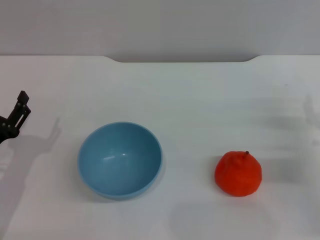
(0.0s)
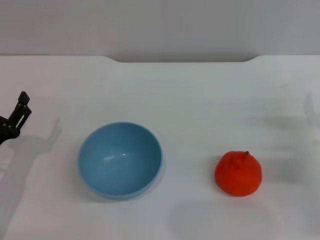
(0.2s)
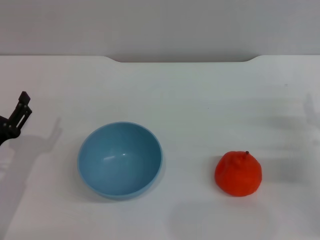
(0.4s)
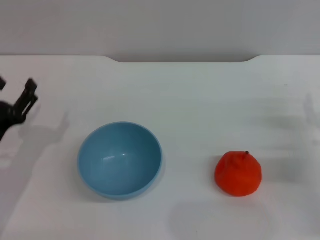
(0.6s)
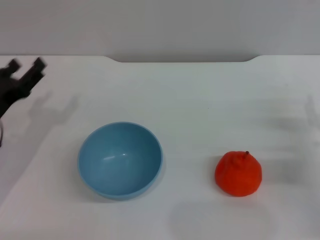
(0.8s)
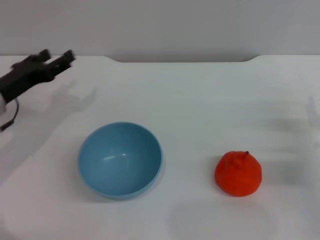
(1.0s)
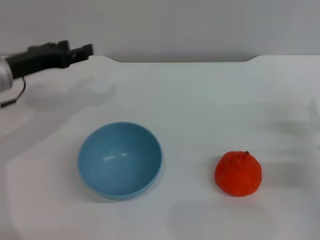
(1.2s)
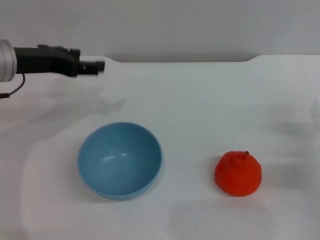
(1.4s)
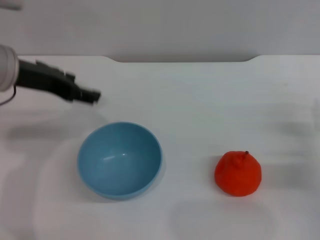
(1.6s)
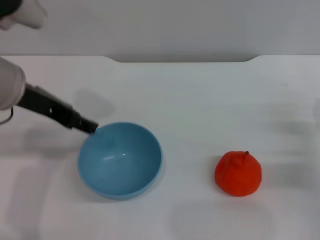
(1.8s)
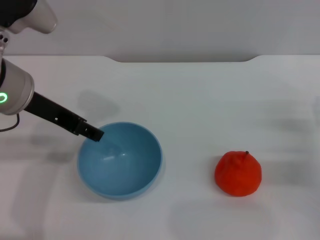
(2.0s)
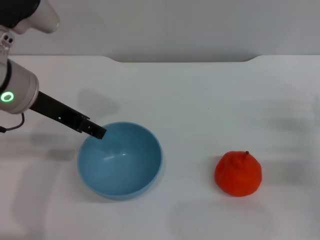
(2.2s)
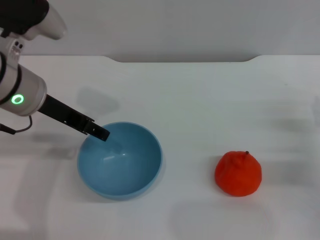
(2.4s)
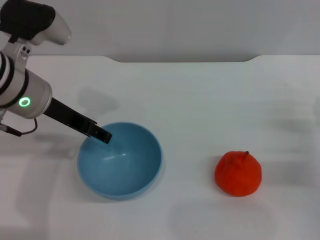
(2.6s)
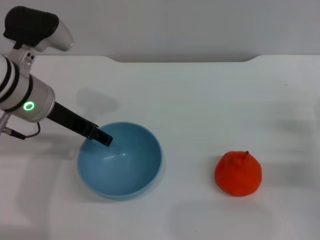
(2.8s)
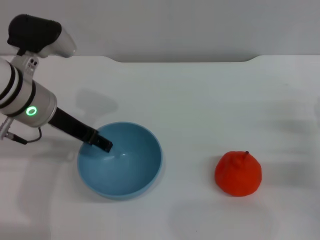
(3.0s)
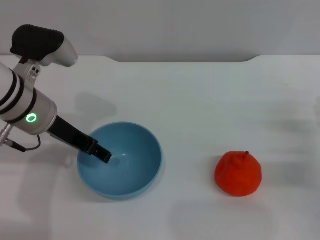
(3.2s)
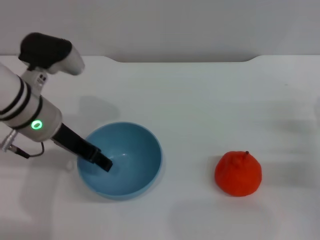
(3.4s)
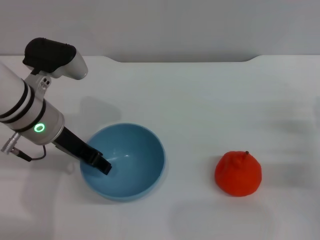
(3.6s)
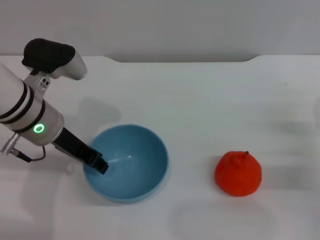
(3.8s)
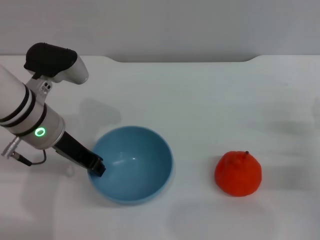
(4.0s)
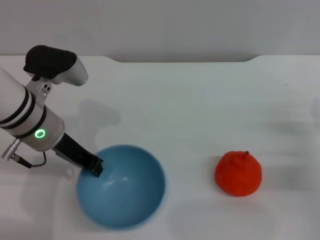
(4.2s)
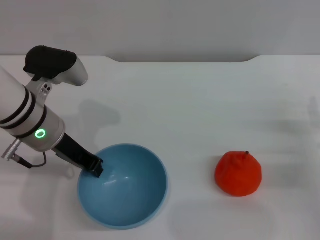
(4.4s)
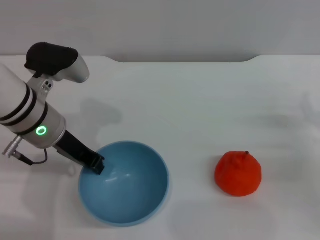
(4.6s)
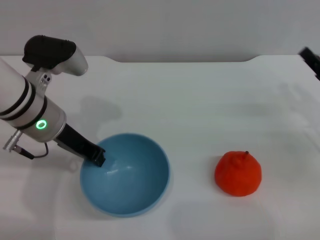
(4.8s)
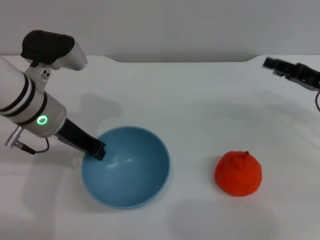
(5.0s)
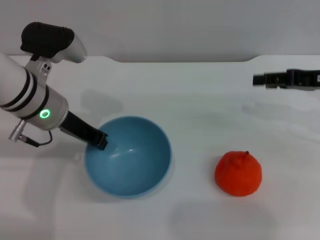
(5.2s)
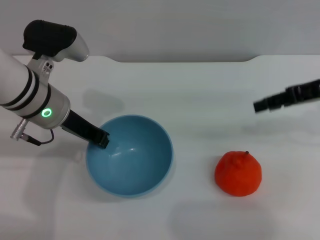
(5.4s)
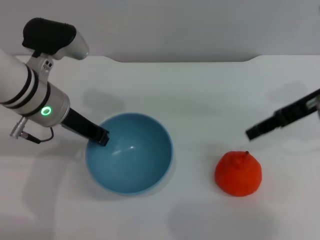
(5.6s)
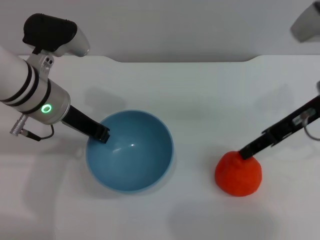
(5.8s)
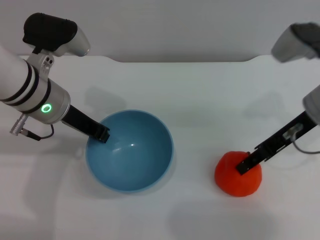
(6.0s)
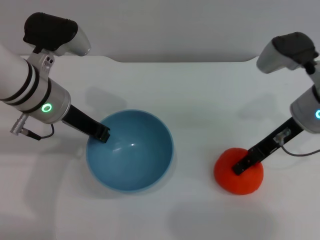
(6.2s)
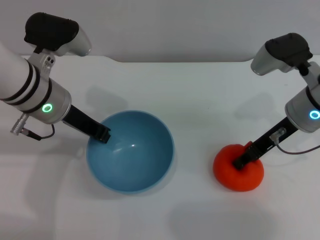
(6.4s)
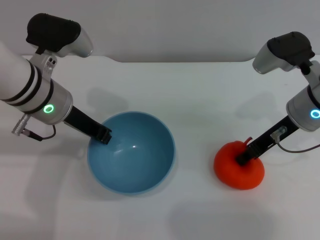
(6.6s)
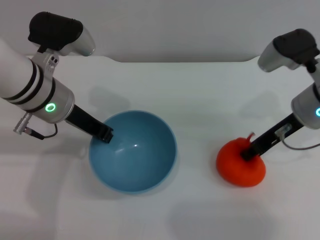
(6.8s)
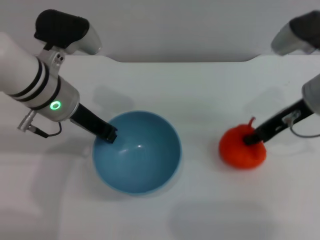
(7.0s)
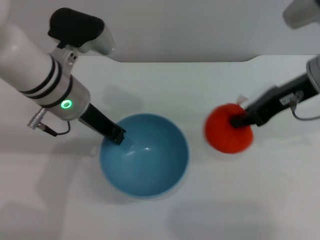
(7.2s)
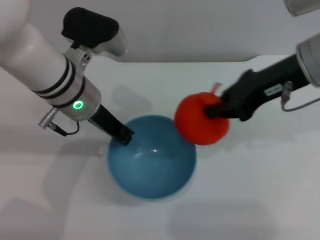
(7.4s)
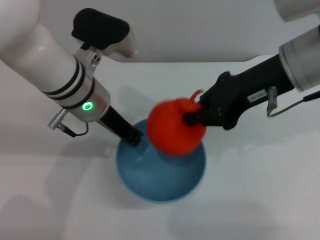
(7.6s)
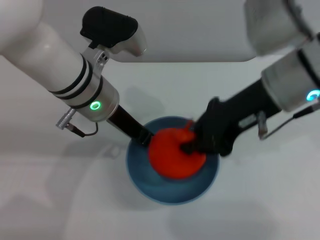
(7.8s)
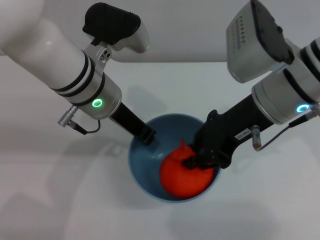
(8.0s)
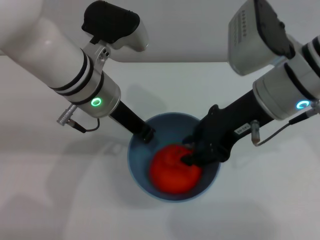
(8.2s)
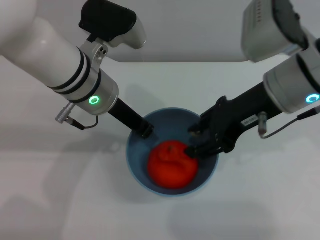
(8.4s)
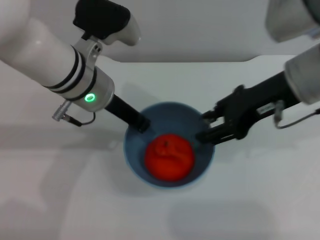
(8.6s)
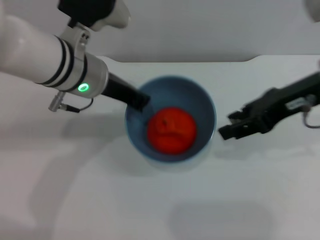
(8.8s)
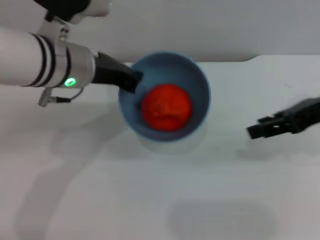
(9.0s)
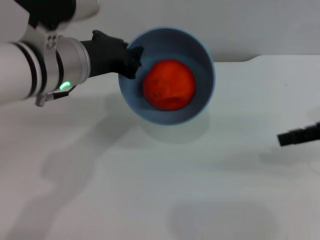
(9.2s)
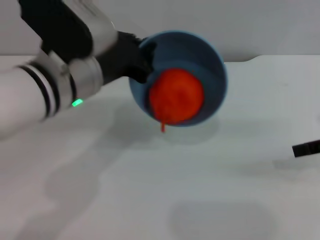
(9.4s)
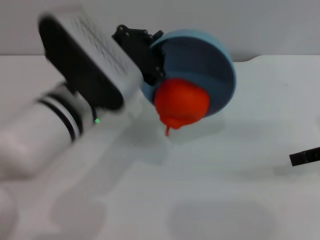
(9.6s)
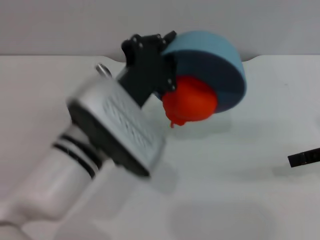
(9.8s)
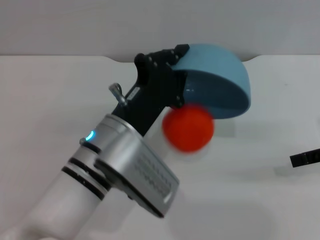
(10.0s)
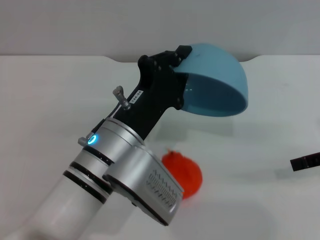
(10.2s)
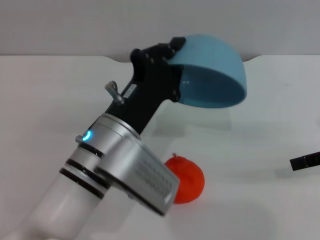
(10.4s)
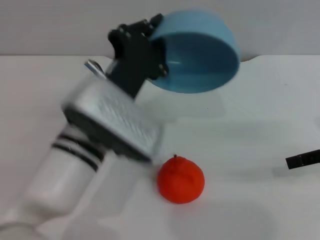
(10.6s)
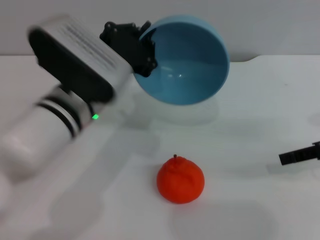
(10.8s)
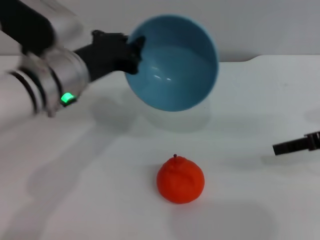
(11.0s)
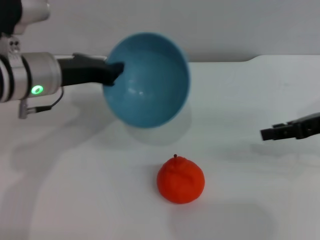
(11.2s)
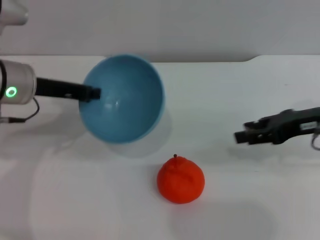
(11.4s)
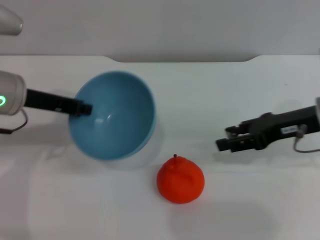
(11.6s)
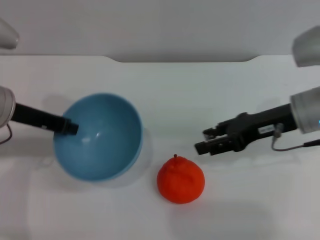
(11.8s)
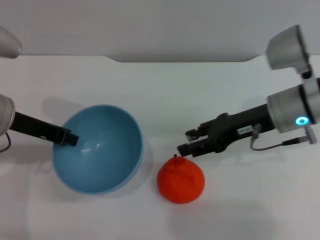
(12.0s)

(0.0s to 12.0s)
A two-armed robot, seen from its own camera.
Task of the whole recording: put the orange into the blue bowl and pour it out repeatedly.
Step, 0.0s - 5.0s: Pick up the bowl with the left gripper.
Step, 5.4s - 7.2s: Pick up the orange with the right gripper.
Step, 7.4s - 8.8s: Place the orange into the bowl.
Step, 9.0s - 10.4s: Pour the orange out of the bowl.
0.0s - 1.6s: The left gripper heads upward and forward, covering about 20 cm.
1.6s - 3.0s: The left gripper heads downward, covering approximately 5 cm.
3.0s - 4.4s: The left gripper closes its fingers.
4.4s - 6.0s: The right gripper travels upward, to the left and forward by roughly 20 cm.
6.0s - 7.6s: The left gripper travels to the right by roughly 5 cm; the right gripper goes some 10 cm upward and to the left, and closes its fingers.
7.6s - 9.0s: The right gripper moves to the right, about 10 cm, and opens its fingers.
9.0s - 10.4s: The left gripper heads backward, downward and to the right, covering roughly 15 cm. Meanwhile the right gripper is displaced to the right by about 5 cm.
10.4s - 12.0s: The two grippers go roughly 15 cm to the left and forward.

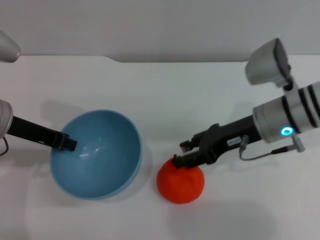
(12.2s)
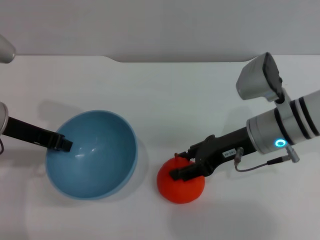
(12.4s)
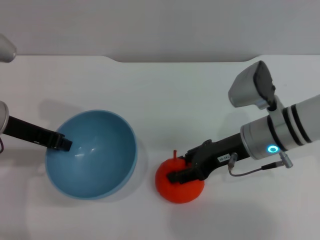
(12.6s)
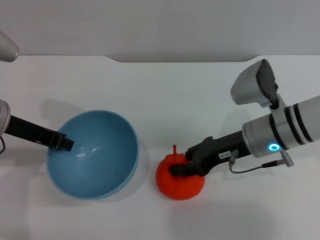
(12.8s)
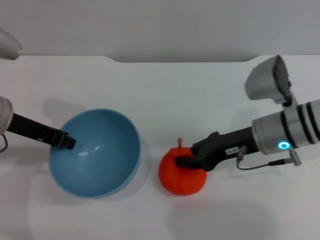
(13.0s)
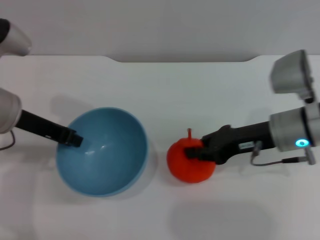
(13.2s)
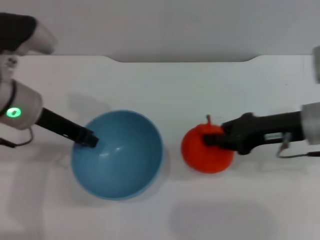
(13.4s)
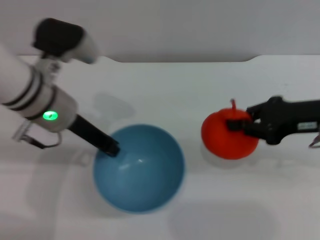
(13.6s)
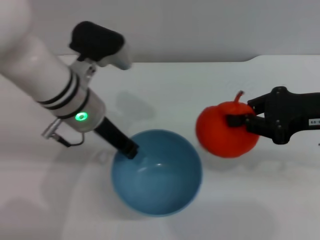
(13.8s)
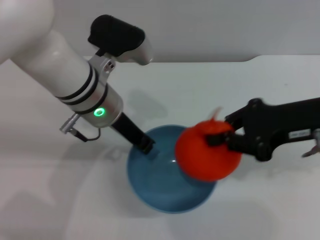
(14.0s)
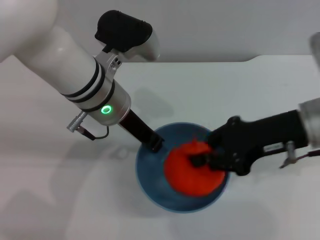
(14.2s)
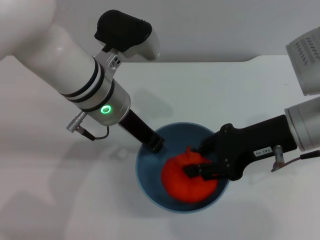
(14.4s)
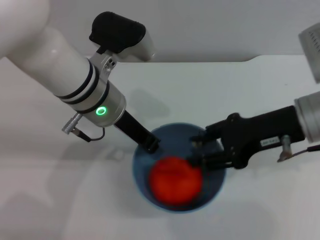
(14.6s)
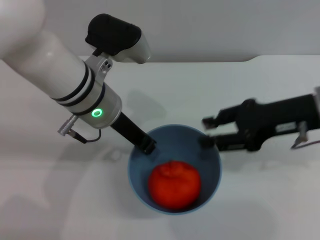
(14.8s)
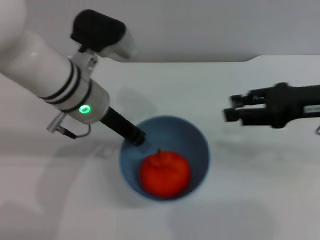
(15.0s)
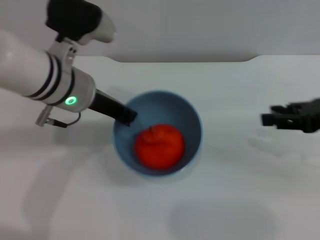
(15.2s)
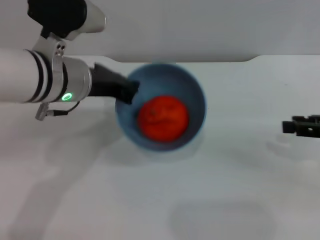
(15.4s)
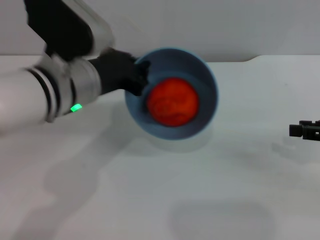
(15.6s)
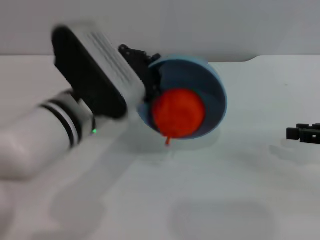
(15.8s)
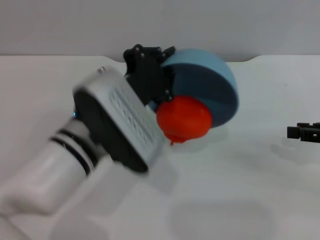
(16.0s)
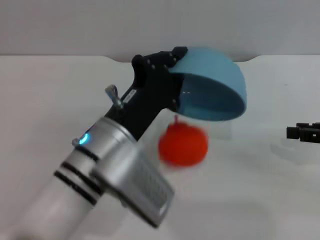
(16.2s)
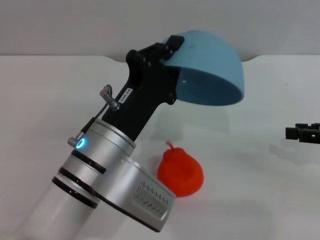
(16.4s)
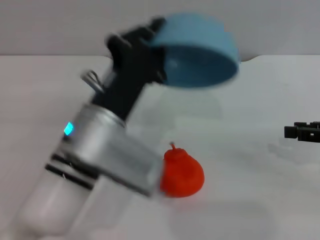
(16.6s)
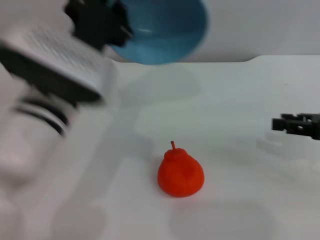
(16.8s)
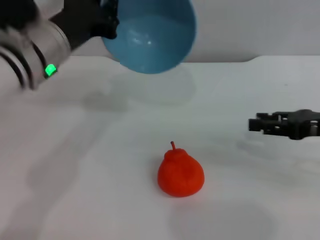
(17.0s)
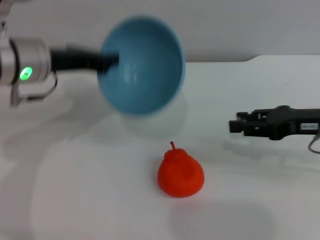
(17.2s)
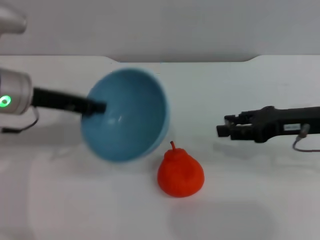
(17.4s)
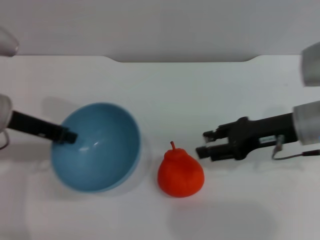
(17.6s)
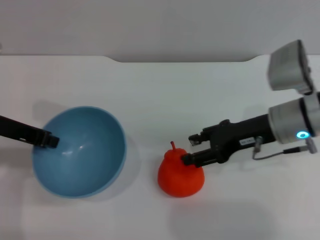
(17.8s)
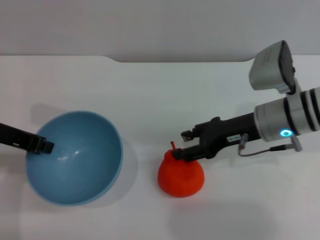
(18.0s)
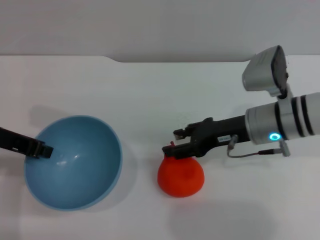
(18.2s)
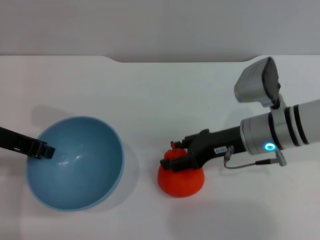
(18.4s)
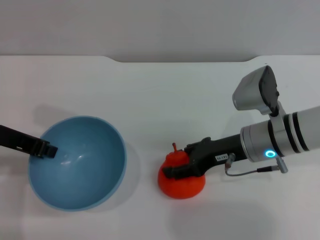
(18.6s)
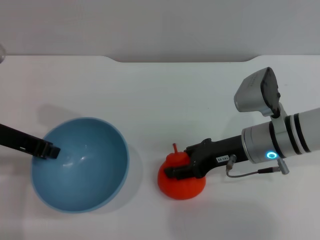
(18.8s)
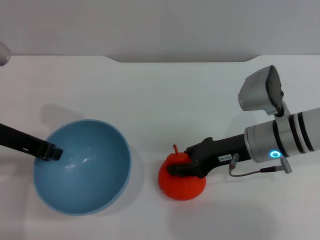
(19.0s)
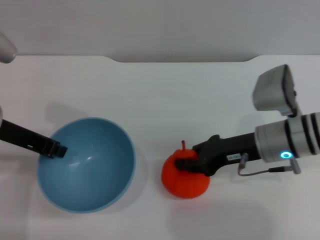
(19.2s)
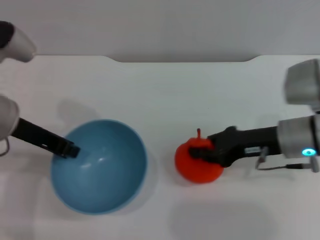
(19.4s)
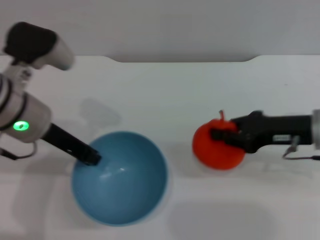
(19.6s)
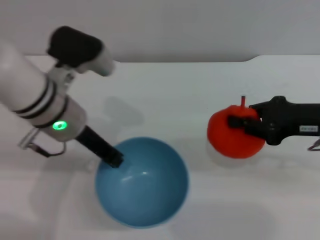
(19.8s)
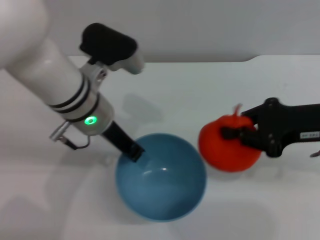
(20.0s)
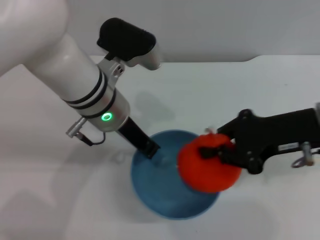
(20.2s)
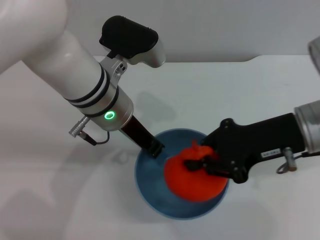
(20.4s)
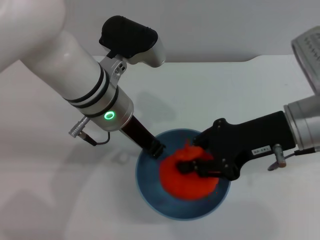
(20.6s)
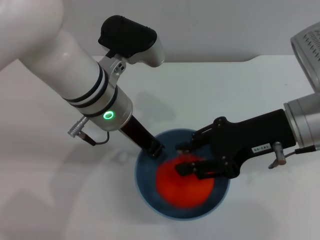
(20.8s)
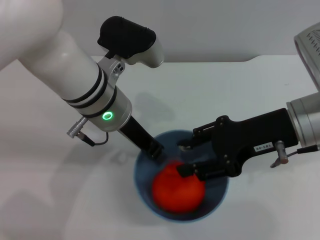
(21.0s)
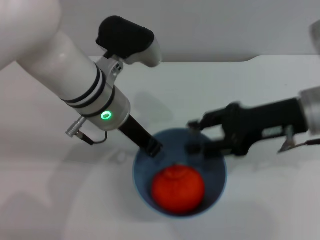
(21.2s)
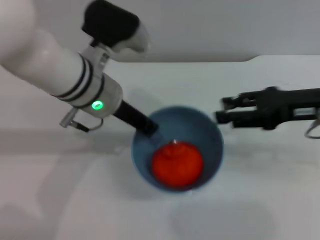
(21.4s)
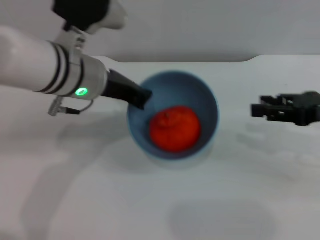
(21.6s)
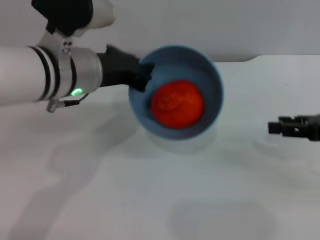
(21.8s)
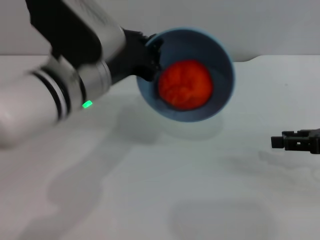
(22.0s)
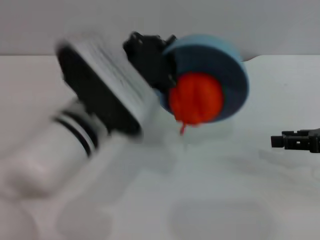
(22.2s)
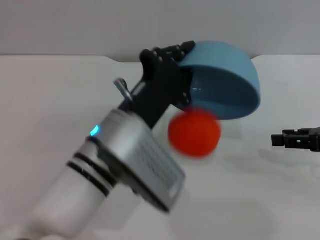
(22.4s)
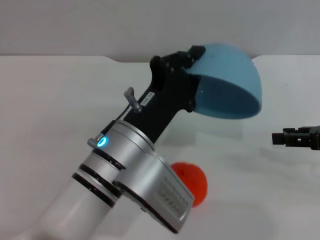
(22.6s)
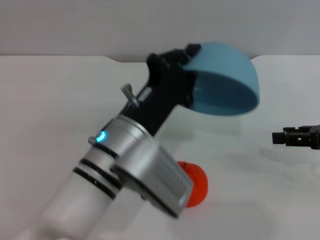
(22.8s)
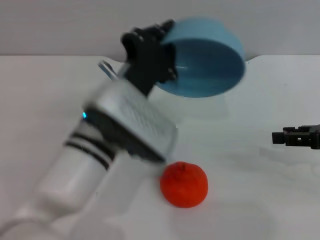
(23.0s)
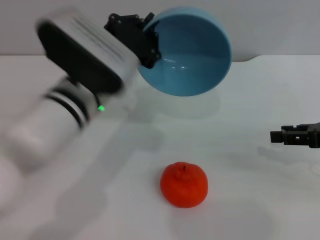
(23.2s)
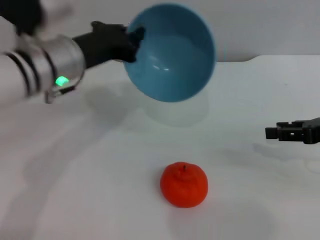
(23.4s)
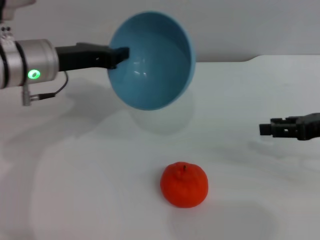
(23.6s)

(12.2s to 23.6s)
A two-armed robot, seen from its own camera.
Task of the whole recording: put the orange into the blue bowl and pour it out repeatedly.
Step, 13.6s - 15.0s: Place the orange into the bowl.
Step, 15.2s - 17.2s: Pour the orange out of the bowl.
Step, 17.4s - 19.6s: Pick up the orange with the right gripper.
Step, 19.8s - 21.6s: Place the orange into the bowl.
Step, 22.0s - 23.2s: Pour the orange out of the bowl.
12.2s - 13.6s: Both grippers travel together to the right, about 10 cm. The right gripper closes.
13.6s - 15.0s: The right gripper opens.
15.0s - 16.4s: The left gripper heads backward and downward, covering some 15 cm. The right gripper heads to the right, covering roughly 10 cm.
16.4s - 17.8s: The two grippers go some 20 cm to the left and forward.
17.8s - 19.4s: The right gripper closes.
19.4s - 20.8s: The right gripper shifts approximately 10 cm upward, while the left gripper heads to the right, covering about 15 cm.
20.8s - 22.2s: The left gripper shifts approximately 5 cm backward; the right gripper is displaced to the right by roughly 15 cm, and opens up.
22.2s - 23.6s: The left gripper heads to the left and forward, covering some 15 cm.
